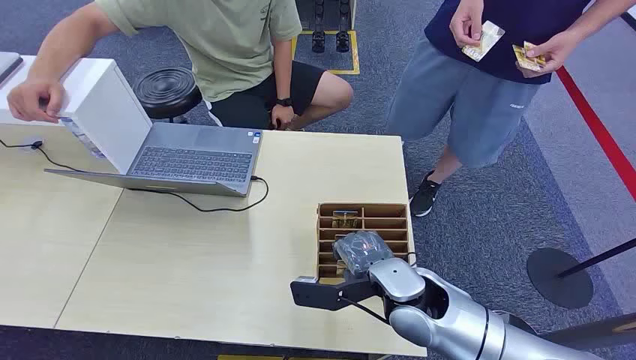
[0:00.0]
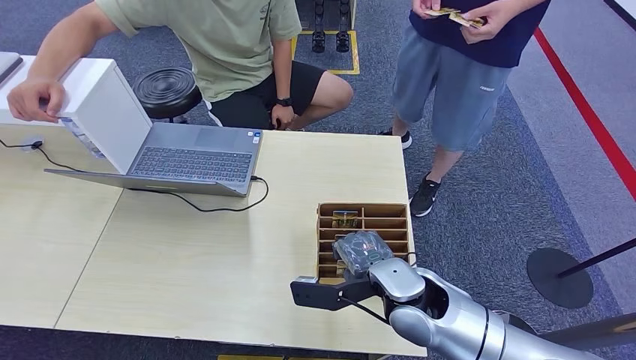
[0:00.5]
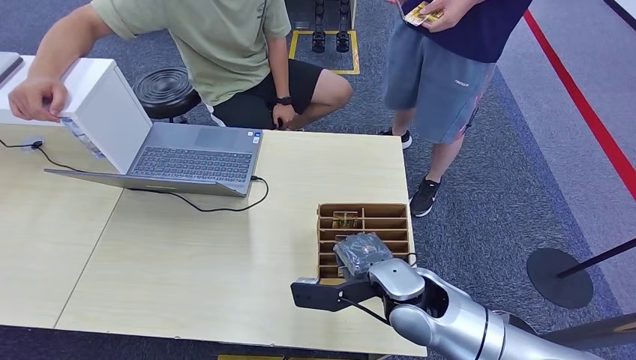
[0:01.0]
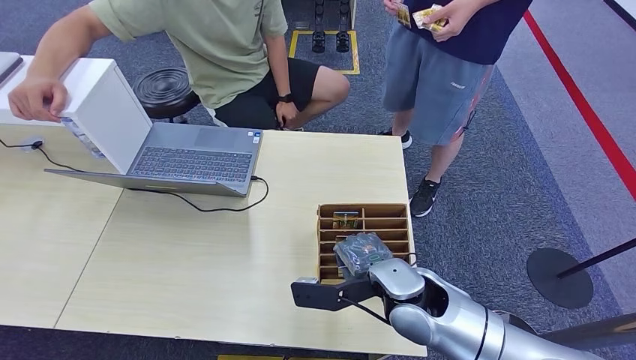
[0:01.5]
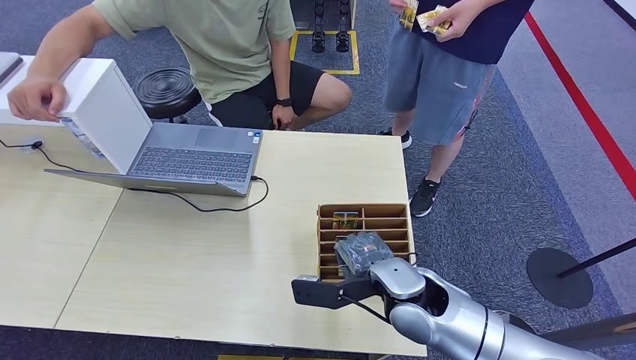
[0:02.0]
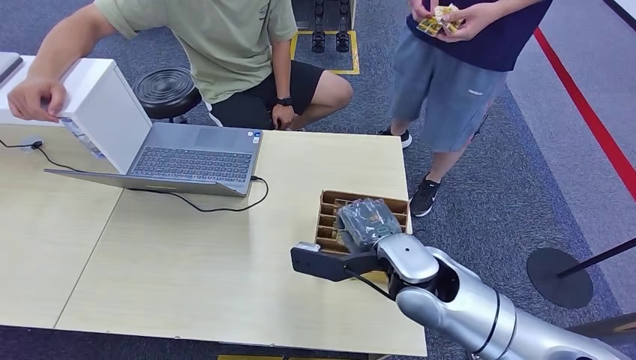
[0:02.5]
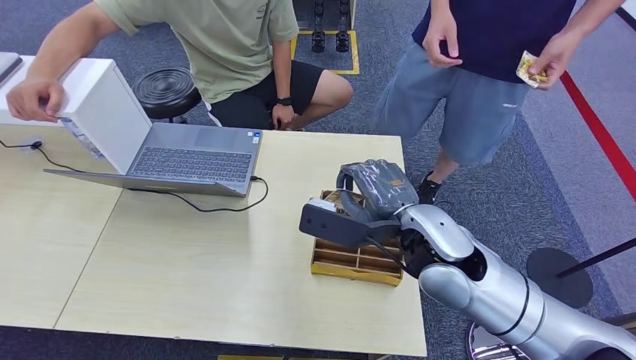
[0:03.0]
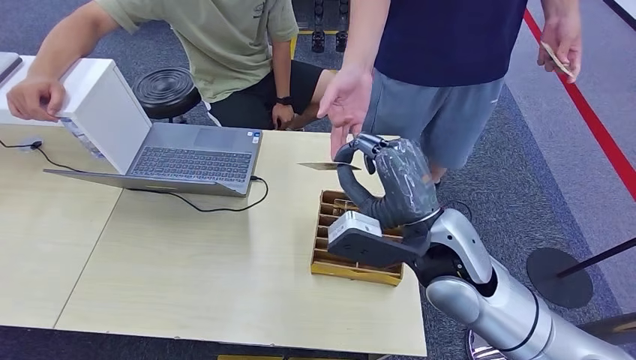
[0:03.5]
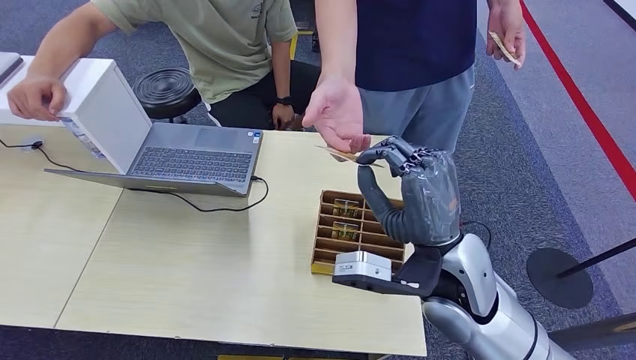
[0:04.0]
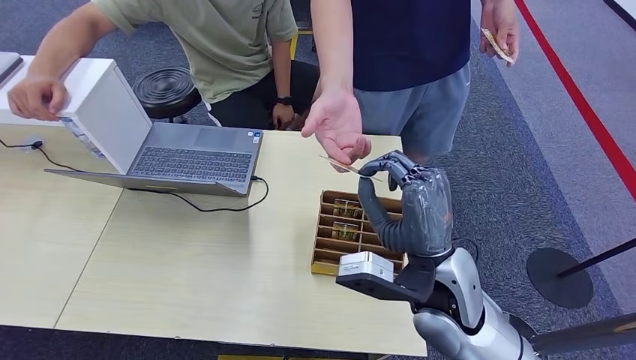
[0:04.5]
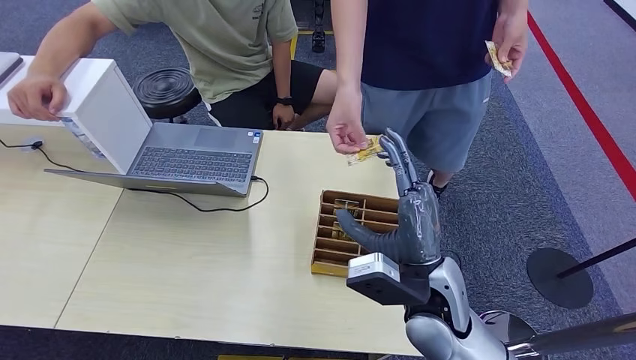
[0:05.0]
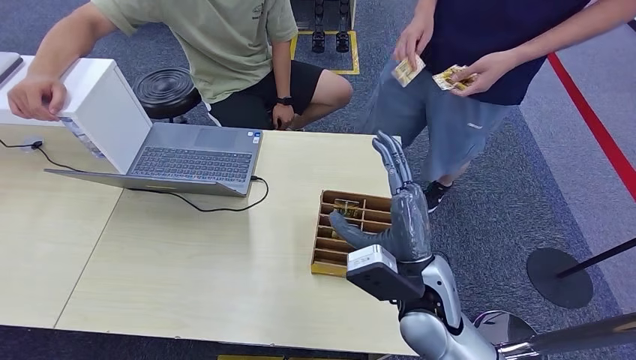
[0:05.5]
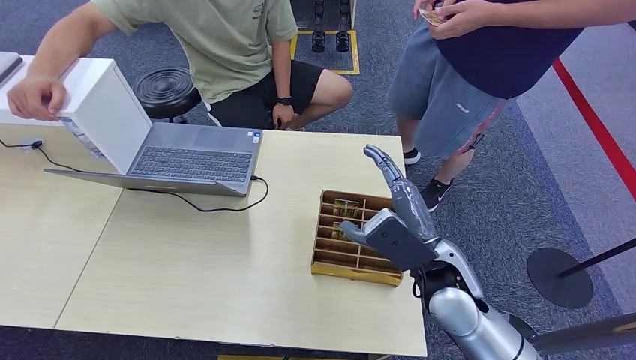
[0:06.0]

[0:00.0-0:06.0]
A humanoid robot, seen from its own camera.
Step, 0:00.0 to 0:02.5: Pick up the room card from the card holder.
Step, 0:03.0 to 0:06.0: Hand the room card to the target.
